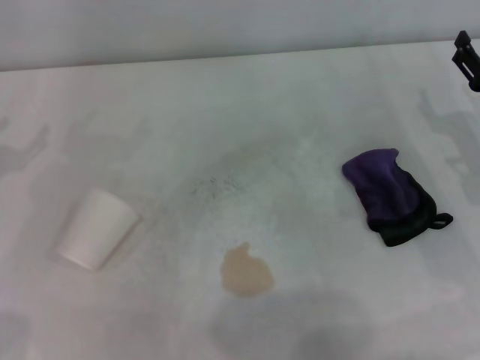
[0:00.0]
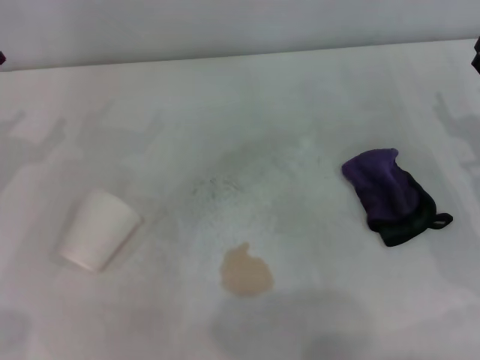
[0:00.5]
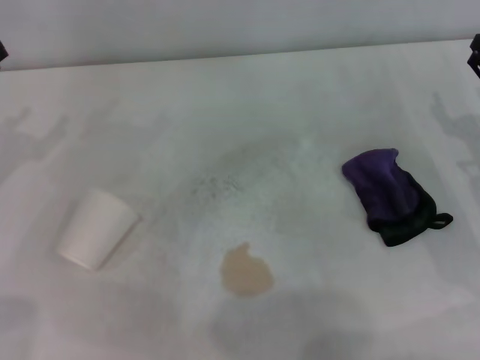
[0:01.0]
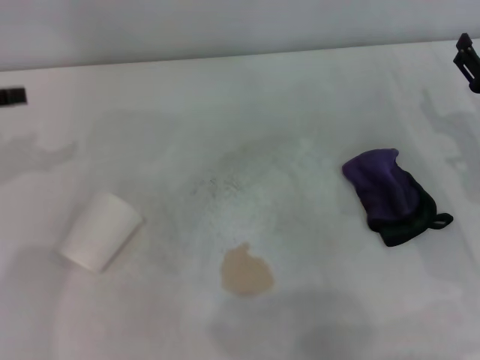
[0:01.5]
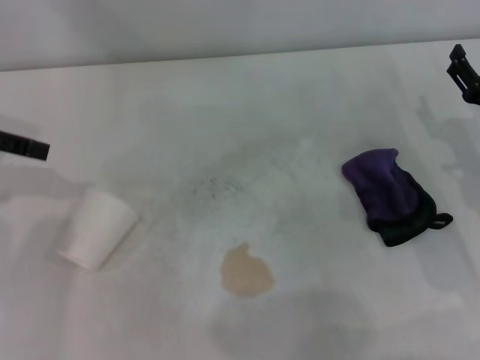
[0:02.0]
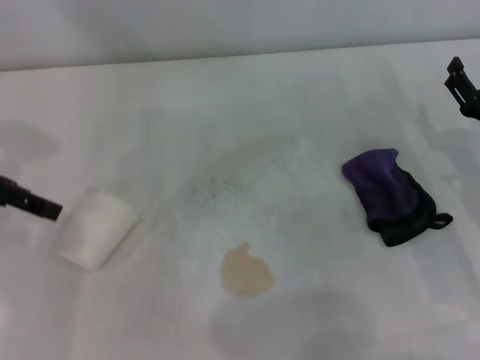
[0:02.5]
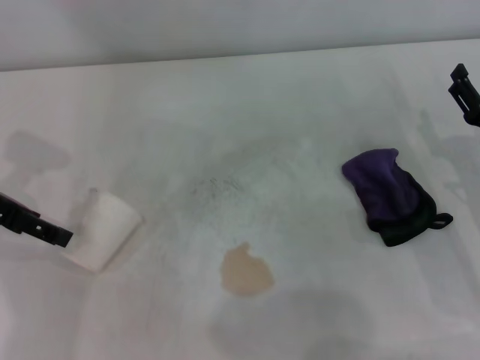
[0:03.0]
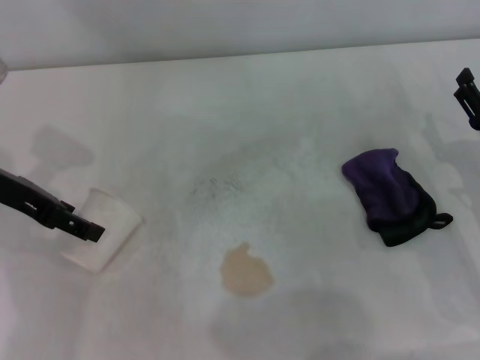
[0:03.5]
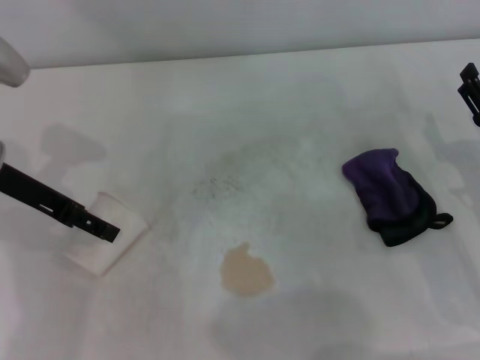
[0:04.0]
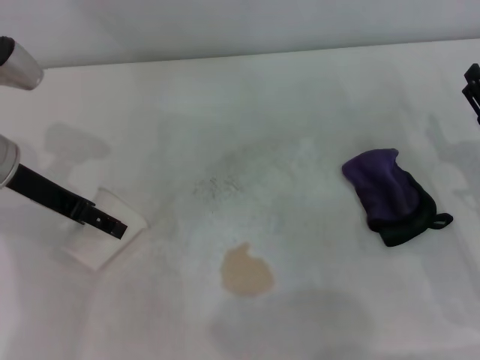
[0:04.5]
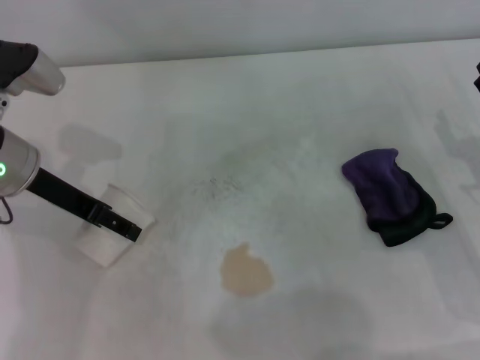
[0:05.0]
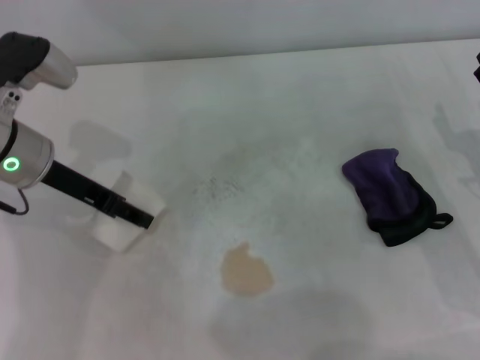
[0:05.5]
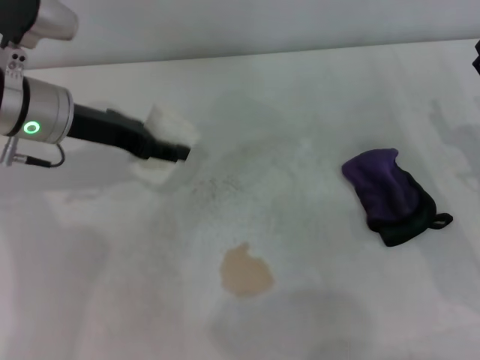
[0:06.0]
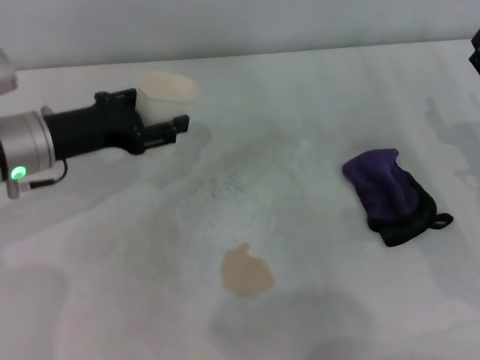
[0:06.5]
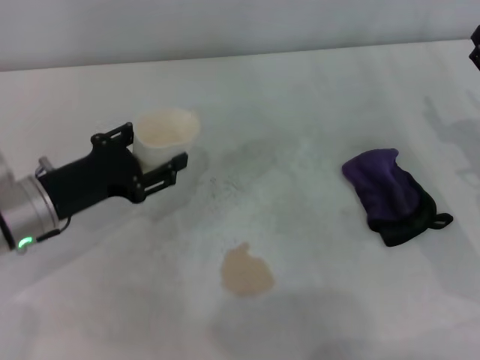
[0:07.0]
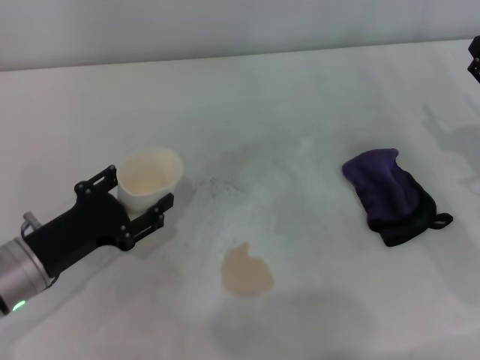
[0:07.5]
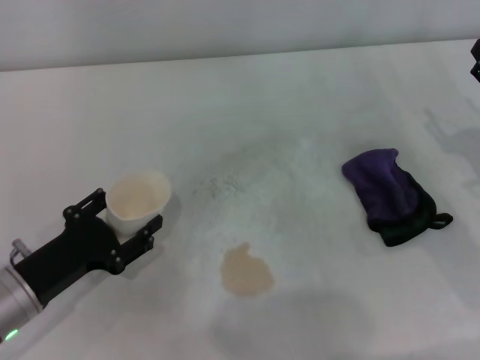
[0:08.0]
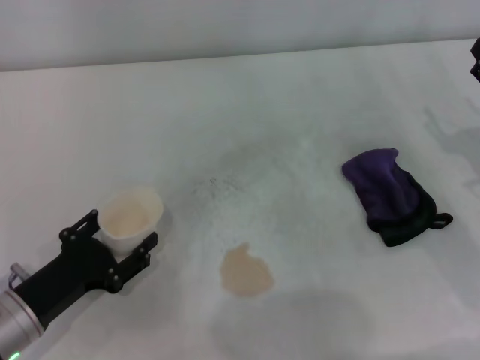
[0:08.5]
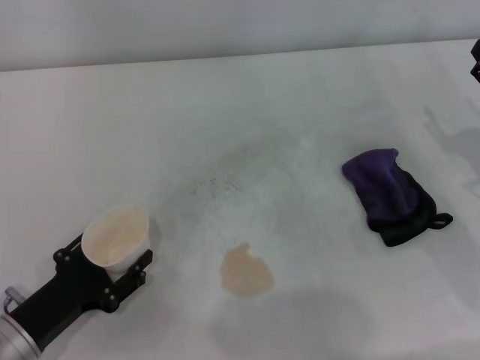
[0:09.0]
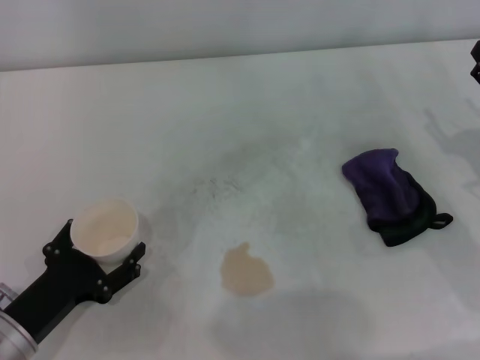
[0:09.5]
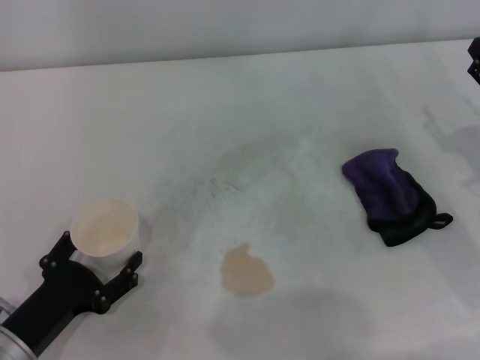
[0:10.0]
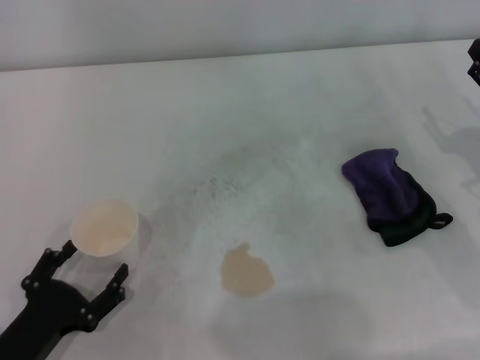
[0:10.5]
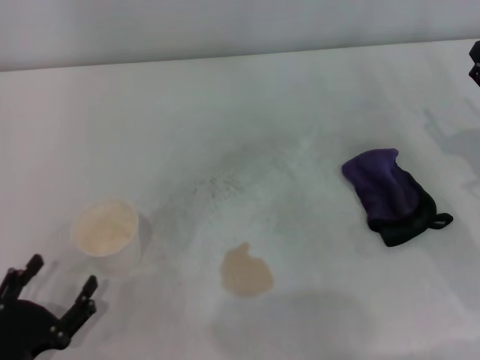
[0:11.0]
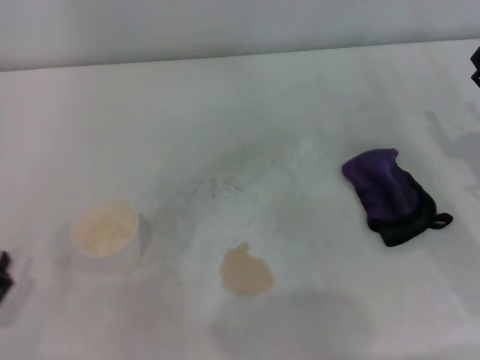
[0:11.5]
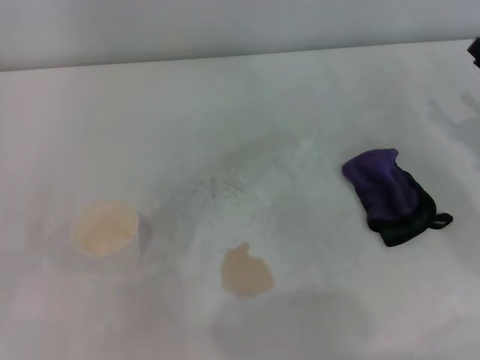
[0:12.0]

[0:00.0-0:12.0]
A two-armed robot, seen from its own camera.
Step, 0:00.0 to 0:04.5: Grasp the paper cup with the left gripper.
Step, 0:05.0 to 0:09.5: Stand the paper cup upright with the left gripper.
0:02.0 to 0:04.0: The left gripper heads to the right and downward, covering some 10 cm.
0:04.0 to 0:06.0: The left gripper heads to the right, covering some 5 cm, and closes.
0:06.0 to 0:08.0: The left gripper goes some 20 cm backward and downward.
0:08.0 to 0:10.0: The left gripper moves backward, about 5 cm, and opens.
0:10.0 to 0:12.0: The left gripper shifts some 10 cm to the left.

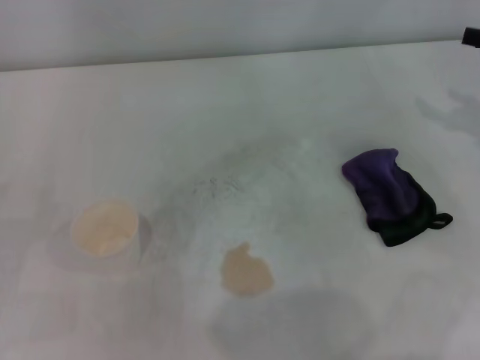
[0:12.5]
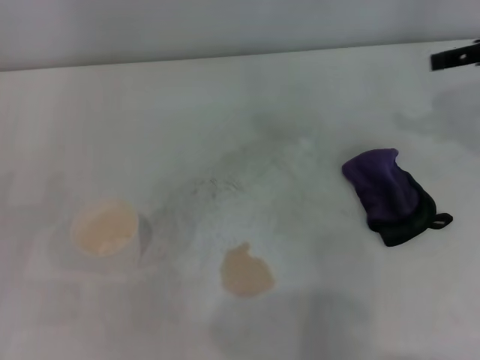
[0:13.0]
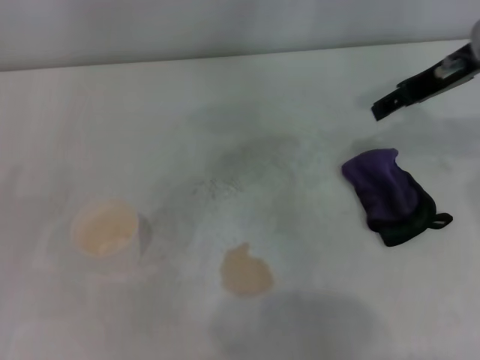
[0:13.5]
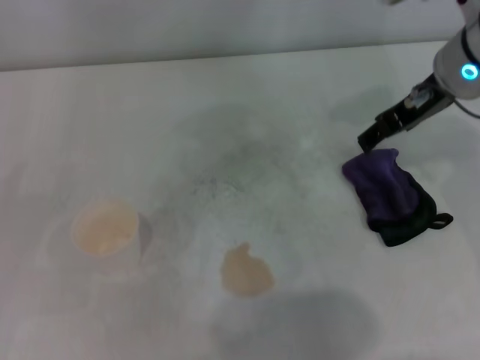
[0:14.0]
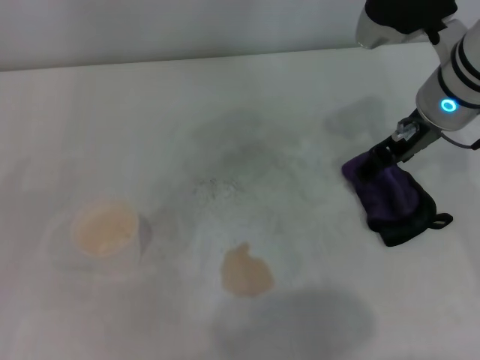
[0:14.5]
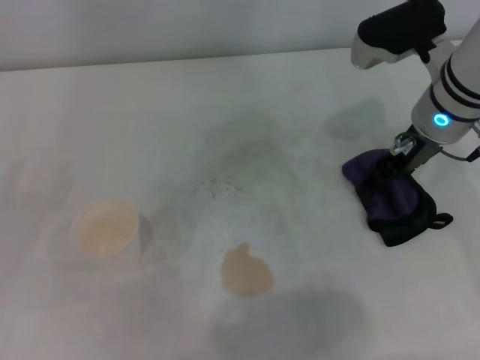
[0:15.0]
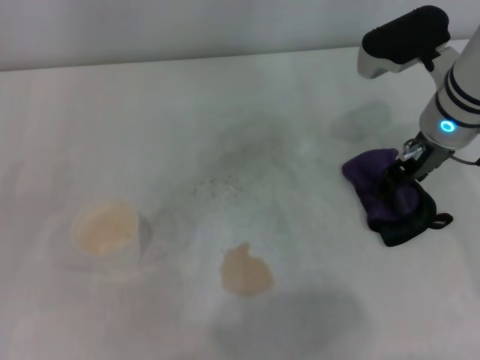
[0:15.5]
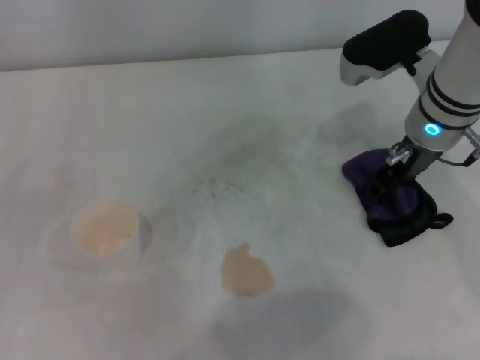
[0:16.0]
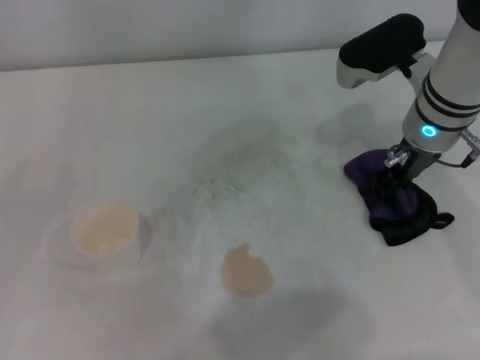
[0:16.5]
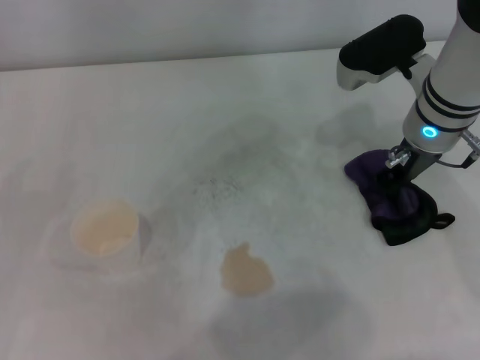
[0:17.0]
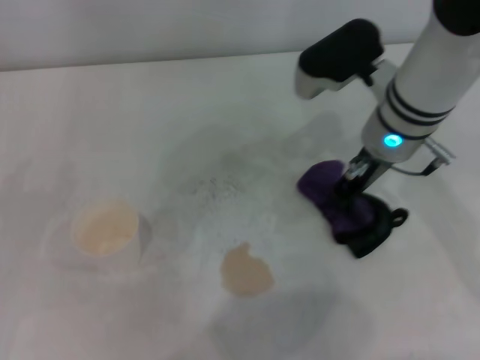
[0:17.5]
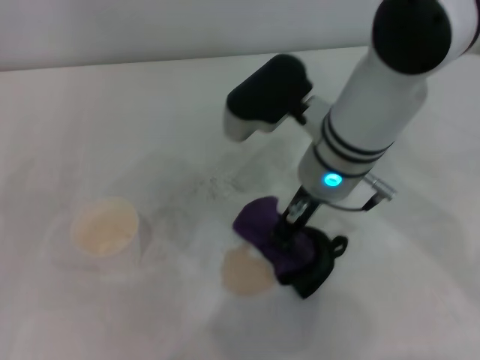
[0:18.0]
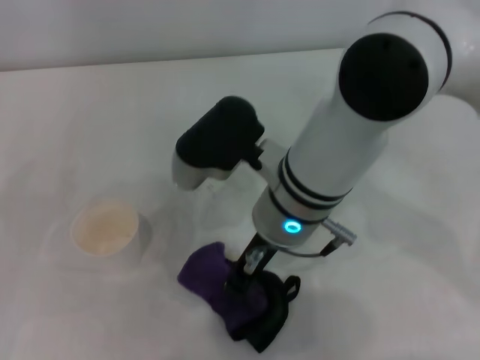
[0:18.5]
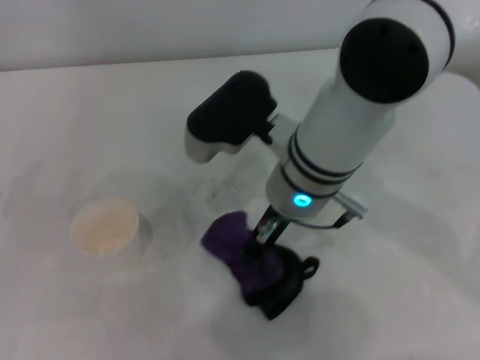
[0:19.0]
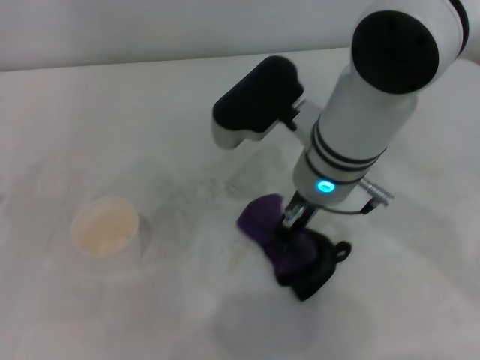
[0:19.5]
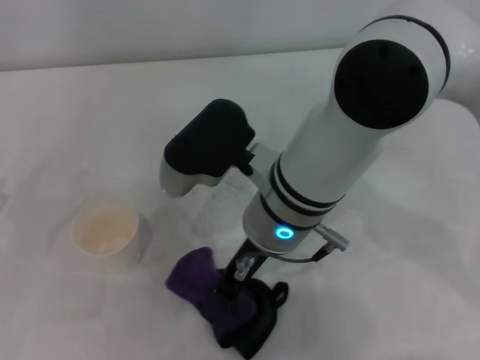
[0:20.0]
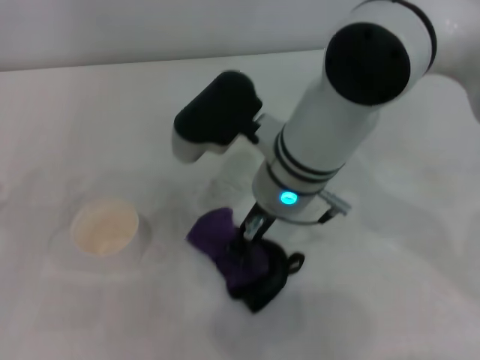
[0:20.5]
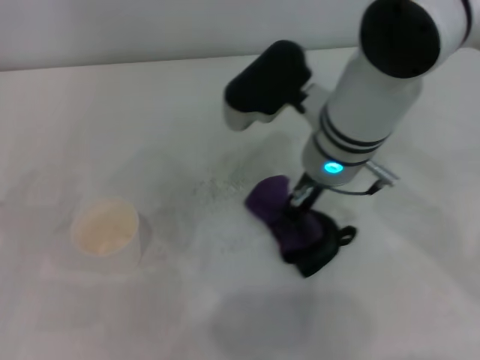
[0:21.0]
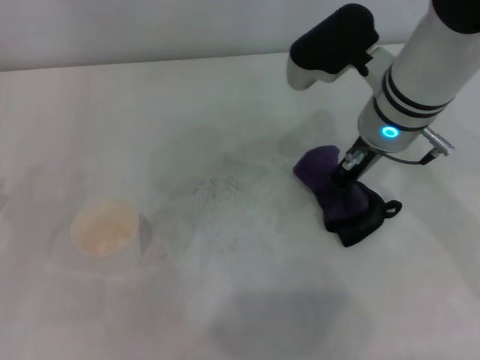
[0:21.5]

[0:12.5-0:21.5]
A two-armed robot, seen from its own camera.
Step, 0:12.5 to 0:17.0: Grasp the rag with the right gripper.
0:12.5 to 0:14.5: The right gripper is displaced to the left by approximately 20 cm.
0:14.5 to 0:17.0: The right gripper closes.
0:17.0 to 0:19.5: The right gripper goes about 15 cm to the left and backward.
0:19.5 to 0:21.5: The right gripper shifts some 5 cm to the right.

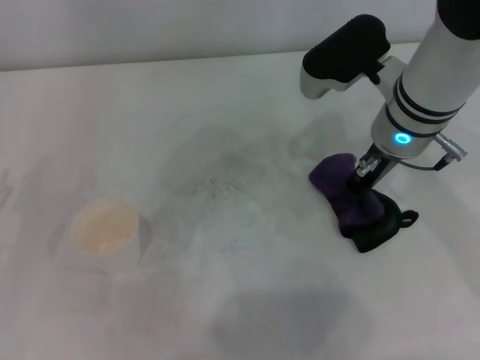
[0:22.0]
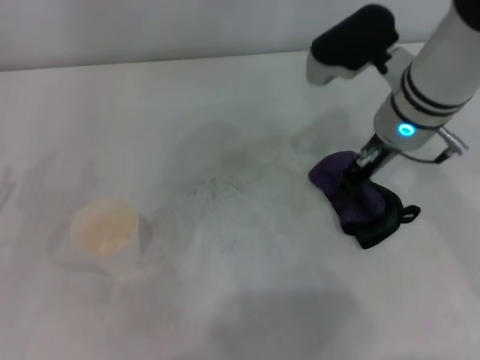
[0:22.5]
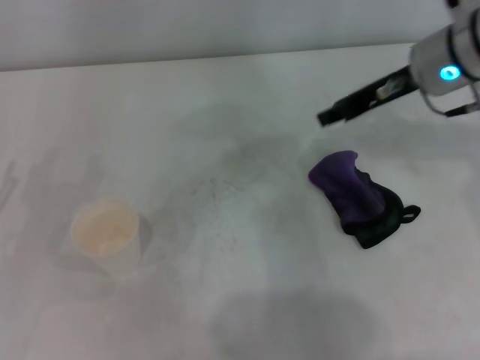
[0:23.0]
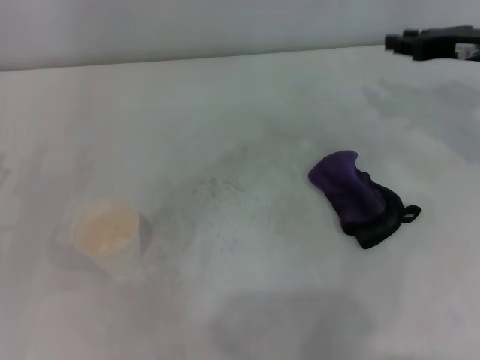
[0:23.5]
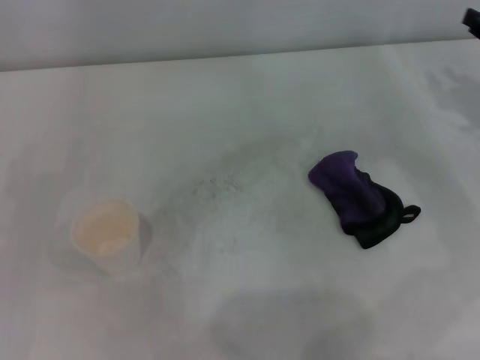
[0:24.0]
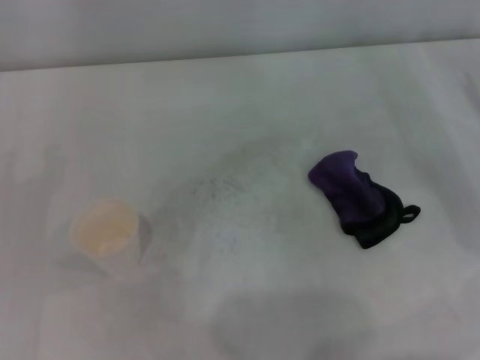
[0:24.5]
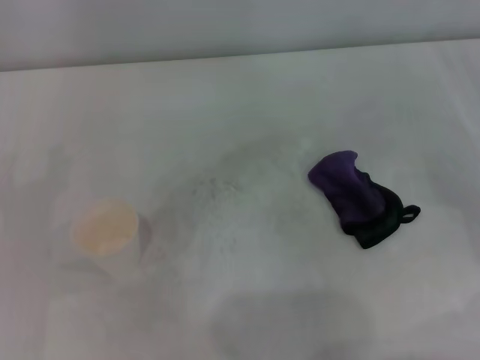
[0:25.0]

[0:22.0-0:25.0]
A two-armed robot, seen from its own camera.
0:22.0 to 0:23.5: The right gripper is displaced to the right by approximately 15 cm, and opens up.
0:23.5 to 0:25.0: The right gripper shifts roughly 15 cm to the right, downward and backward, and opens up.
